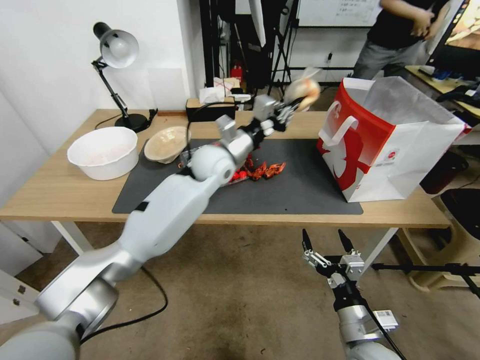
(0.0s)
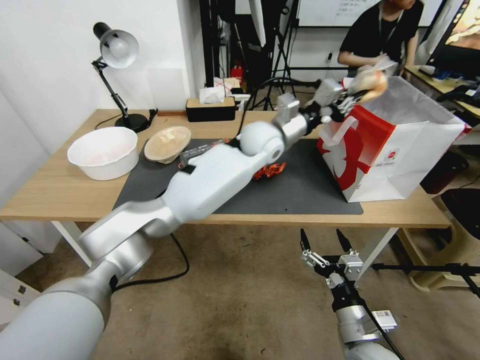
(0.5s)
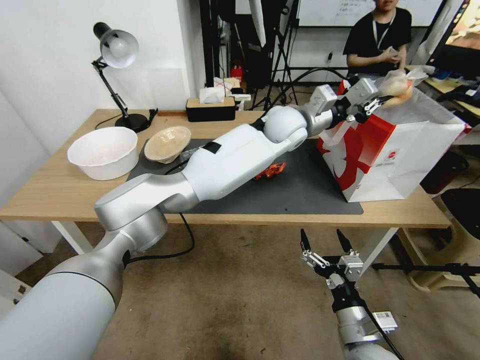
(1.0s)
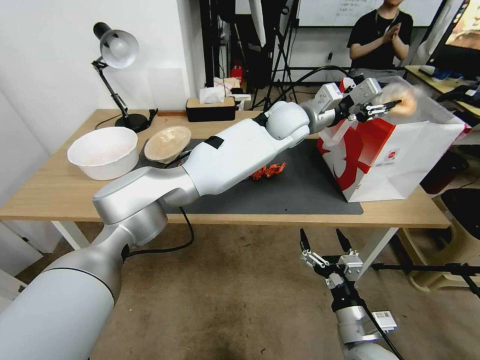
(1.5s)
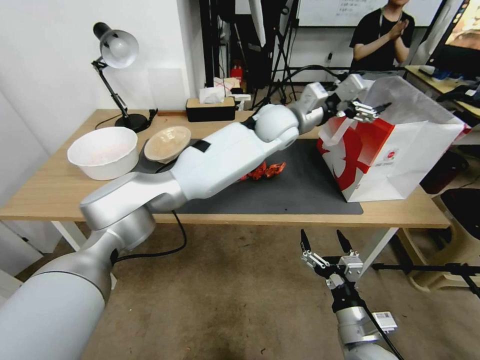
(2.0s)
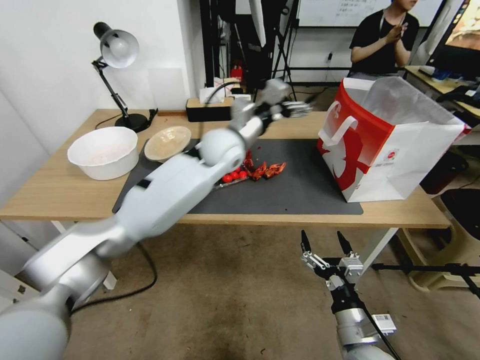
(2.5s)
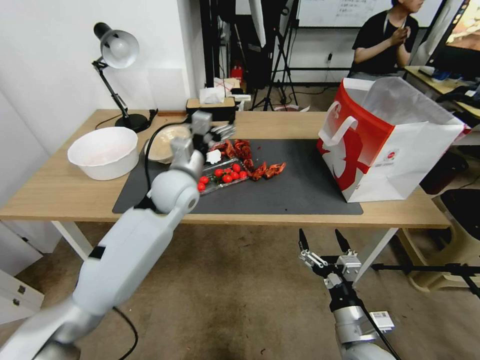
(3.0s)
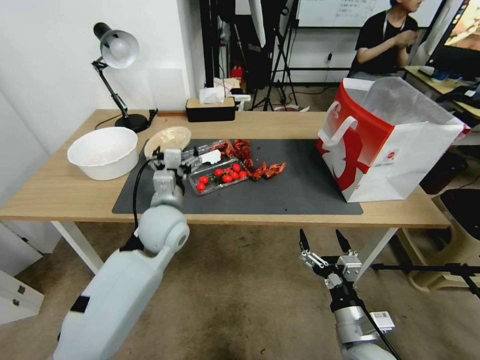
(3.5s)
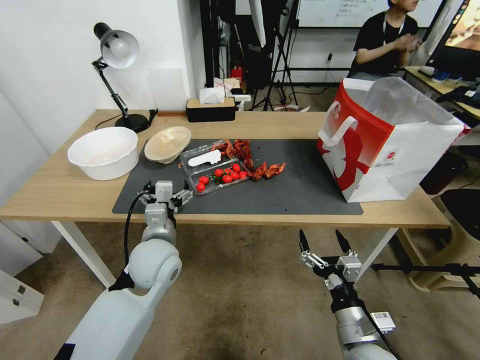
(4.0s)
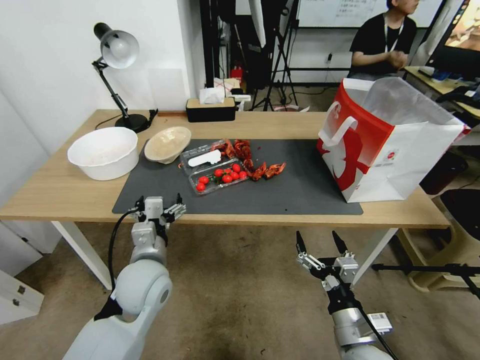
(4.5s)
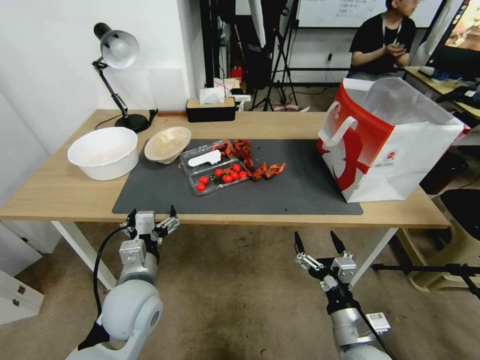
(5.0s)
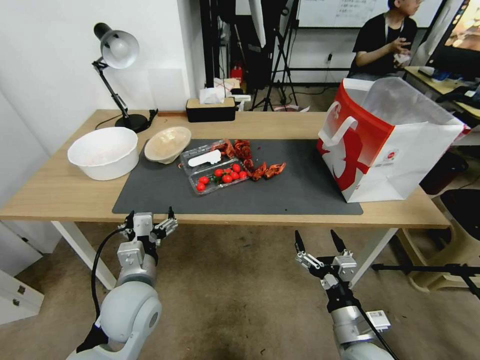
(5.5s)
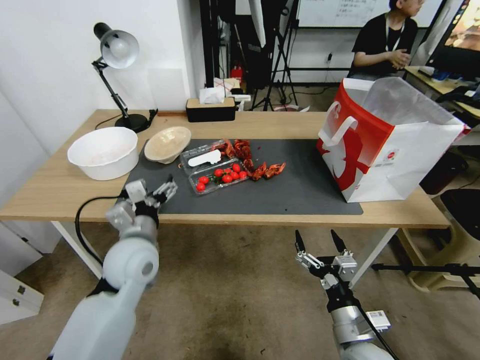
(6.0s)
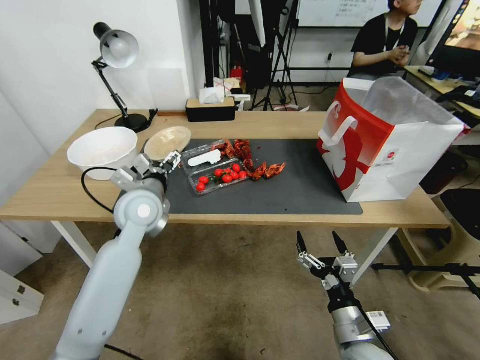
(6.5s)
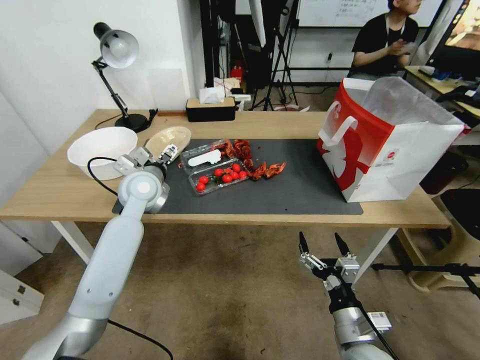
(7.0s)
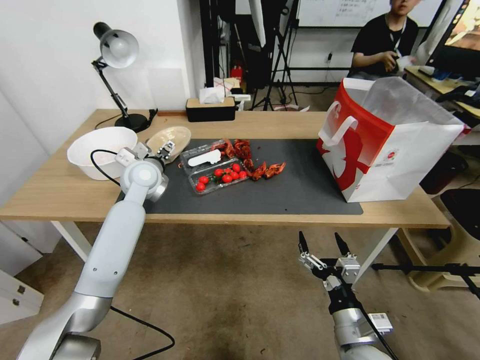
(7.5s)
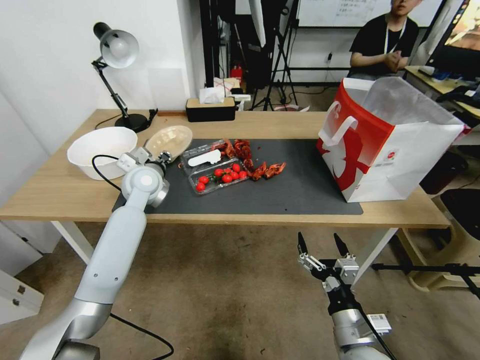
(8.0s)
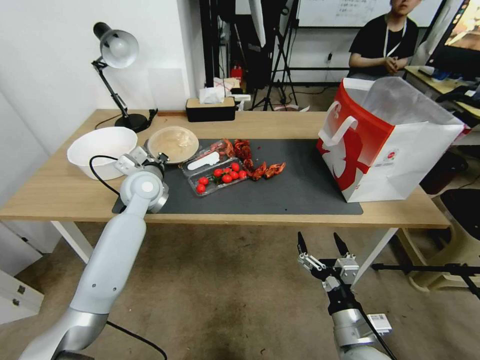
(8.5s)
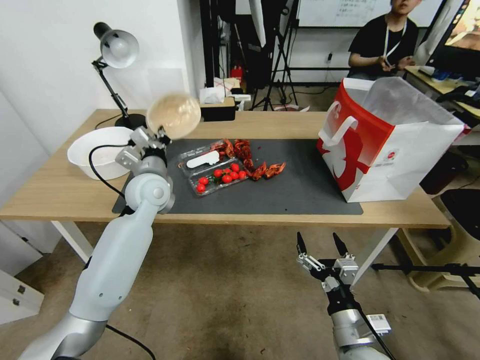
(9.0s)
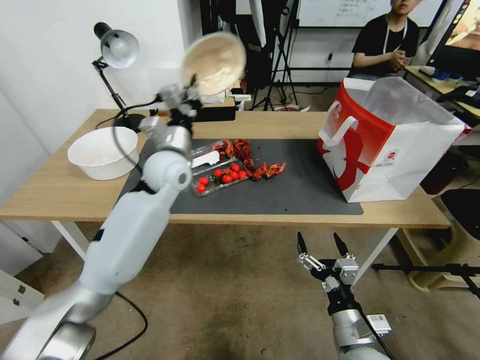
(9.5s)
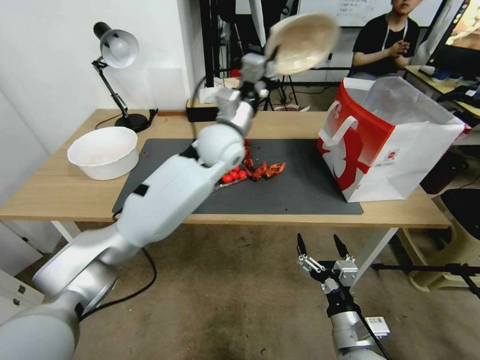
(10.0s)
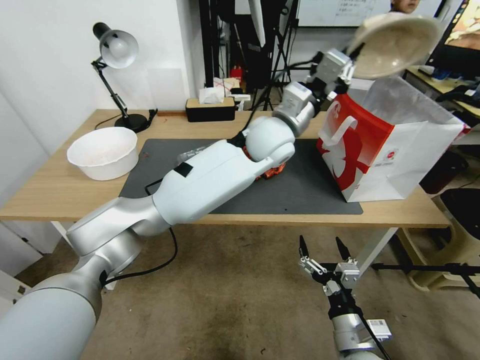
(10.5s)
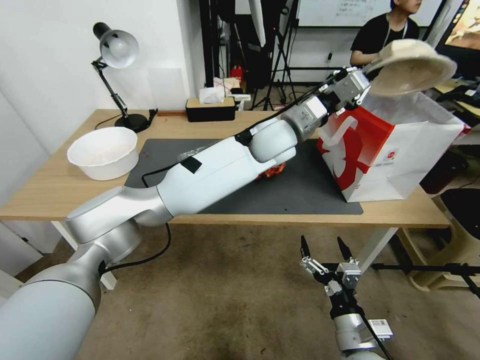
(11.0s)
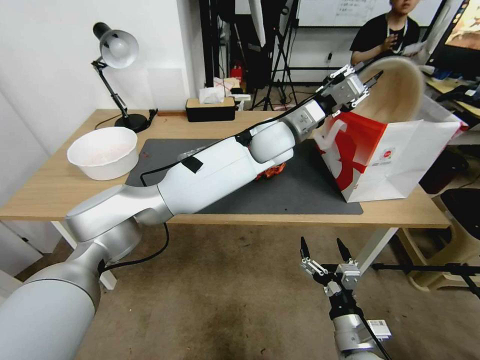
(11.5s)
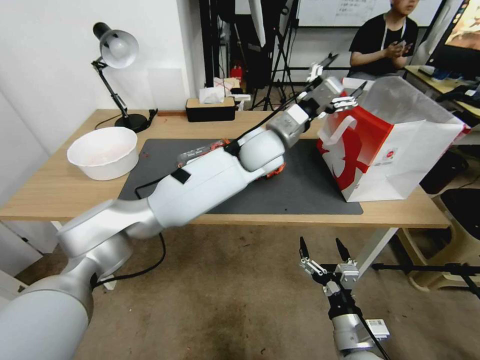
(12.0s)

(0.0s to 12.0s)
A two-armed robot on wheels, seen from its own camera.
0.0s - 2.0s: The left gripper is displaced to the right and upward by about 15 cm, and opens.
2.0s - 4.0s: The left gripper heads to the left, backward and downward, covering approximately 40 cm.
4.0s - 6.0s: The left gripper moves approximately 10 cm backward and comes back.
6.0s - 8.0s: The left gripper is displaced forward by about 20 cm, and closes its fingers.
8.0s - 10.0s: The left gripper is displaced to the right and upward by some 20 cm, and closes.
10.0s - 12.0s: The left gripper travels to the right by about 10 cm, and opens its fingers.

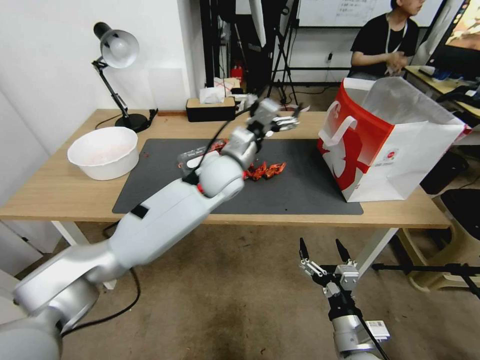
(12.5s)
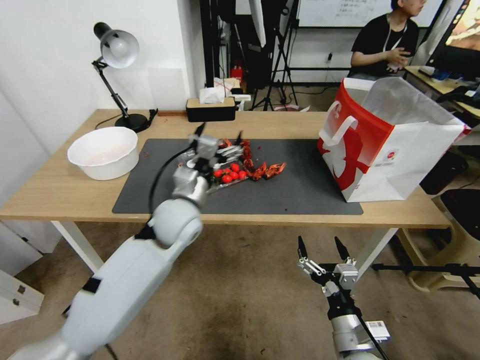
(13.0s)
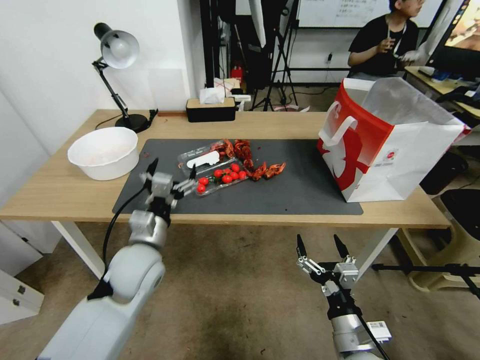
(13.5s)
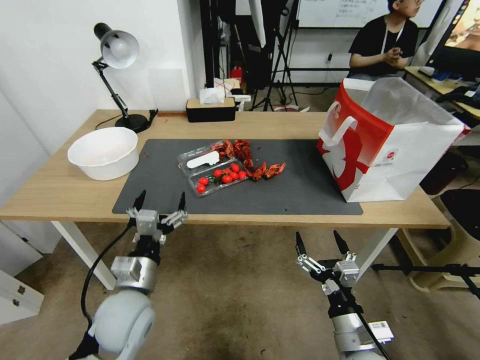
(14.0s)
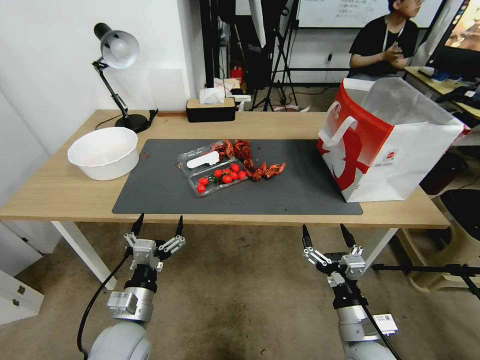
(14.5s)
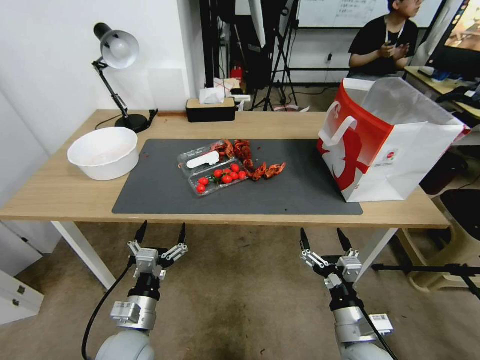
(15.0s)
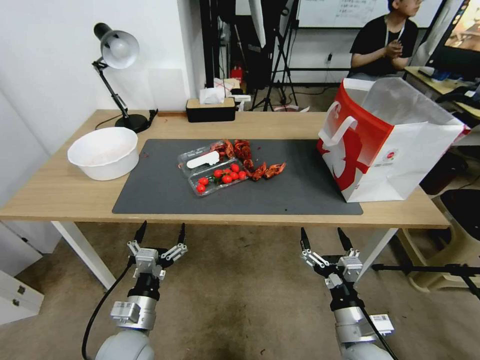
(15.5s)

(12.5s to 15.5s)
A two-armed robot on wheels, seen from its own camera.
12.5s - 14.0s: The left gripper moves backward, to the left and downward, about 35 cm.
14.0s - 15.5s: The left gripper travels downward by some 5 cm.
